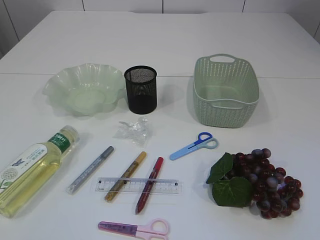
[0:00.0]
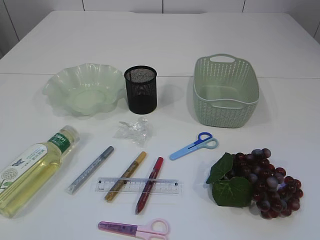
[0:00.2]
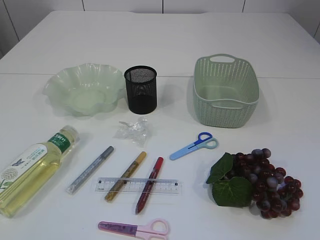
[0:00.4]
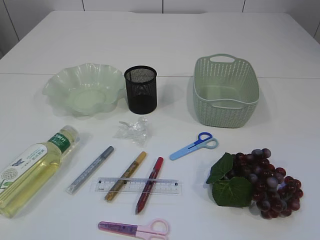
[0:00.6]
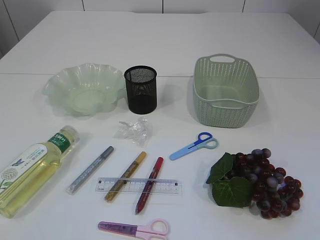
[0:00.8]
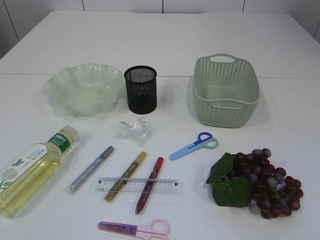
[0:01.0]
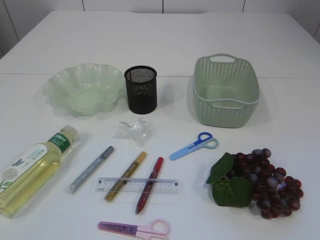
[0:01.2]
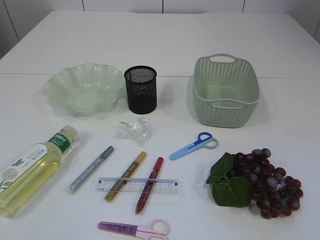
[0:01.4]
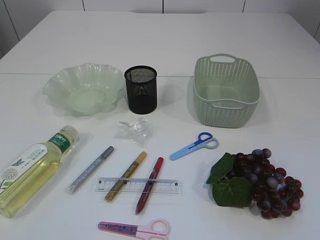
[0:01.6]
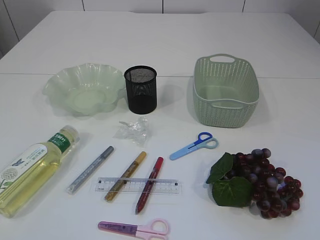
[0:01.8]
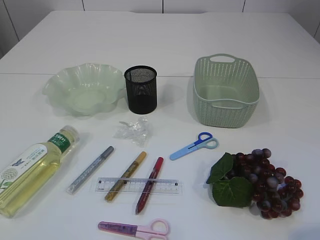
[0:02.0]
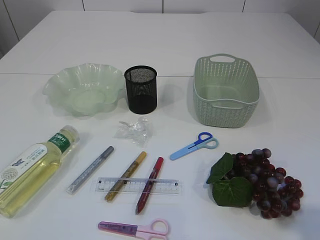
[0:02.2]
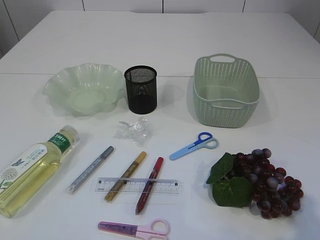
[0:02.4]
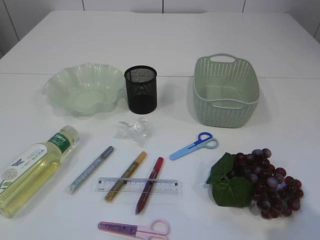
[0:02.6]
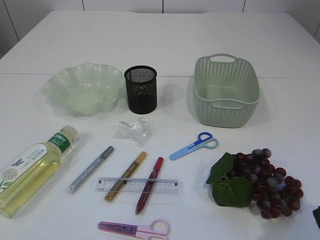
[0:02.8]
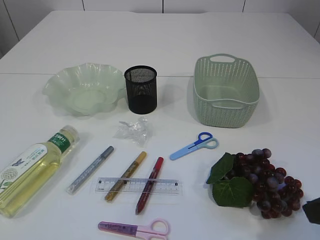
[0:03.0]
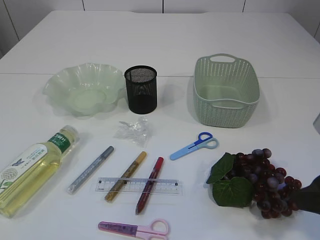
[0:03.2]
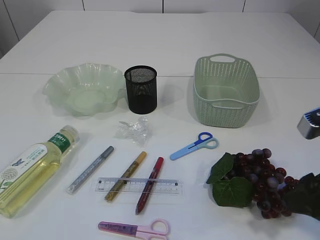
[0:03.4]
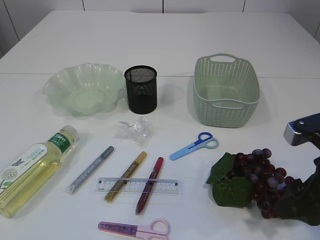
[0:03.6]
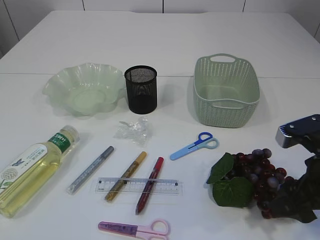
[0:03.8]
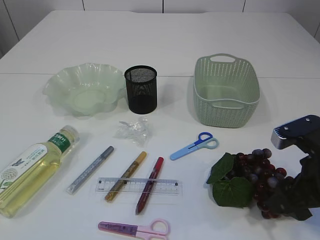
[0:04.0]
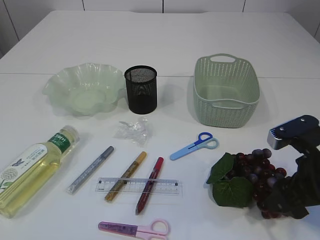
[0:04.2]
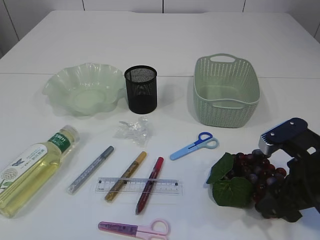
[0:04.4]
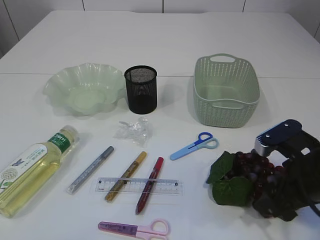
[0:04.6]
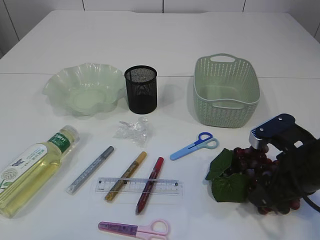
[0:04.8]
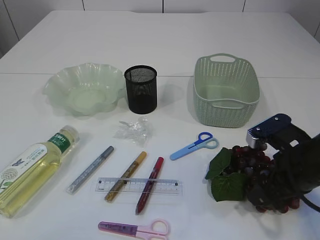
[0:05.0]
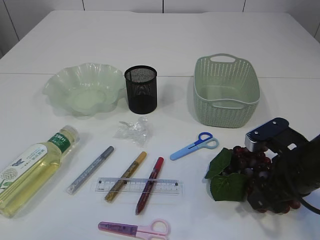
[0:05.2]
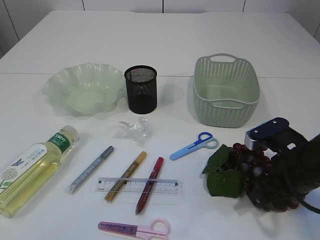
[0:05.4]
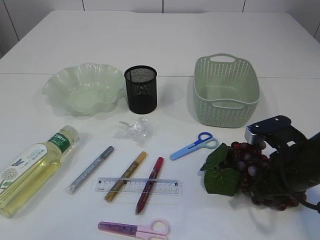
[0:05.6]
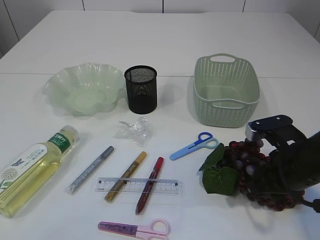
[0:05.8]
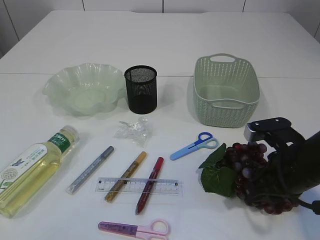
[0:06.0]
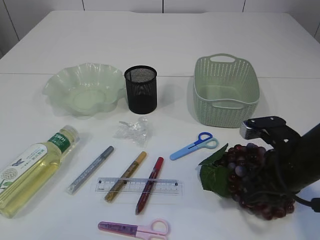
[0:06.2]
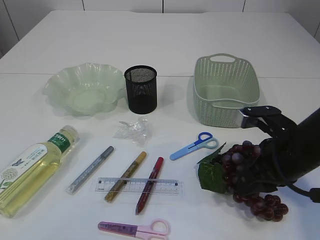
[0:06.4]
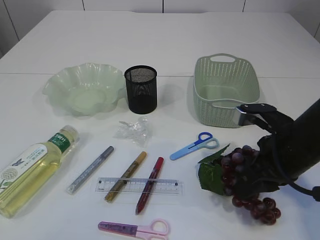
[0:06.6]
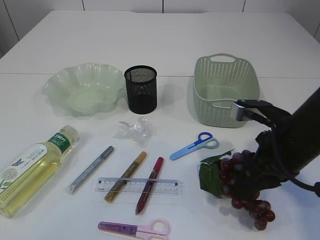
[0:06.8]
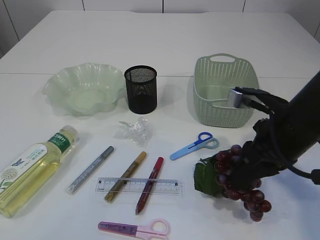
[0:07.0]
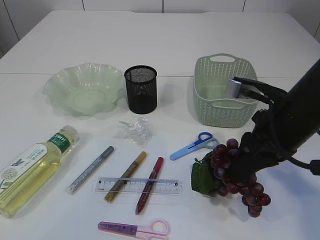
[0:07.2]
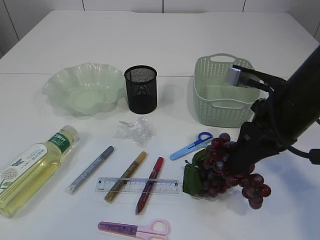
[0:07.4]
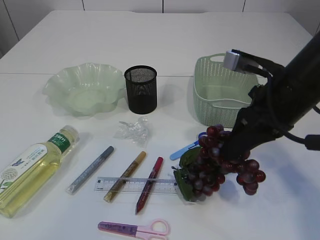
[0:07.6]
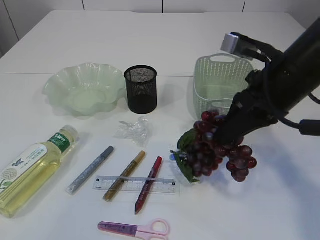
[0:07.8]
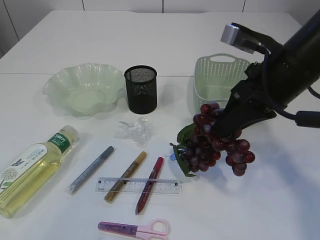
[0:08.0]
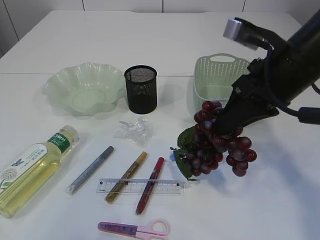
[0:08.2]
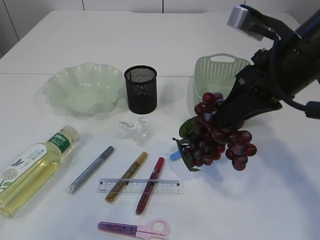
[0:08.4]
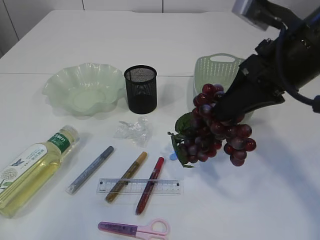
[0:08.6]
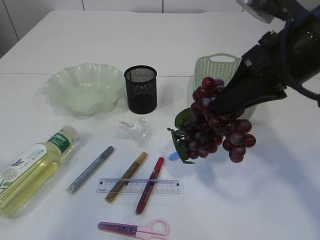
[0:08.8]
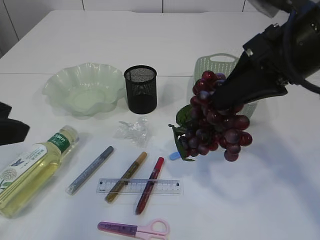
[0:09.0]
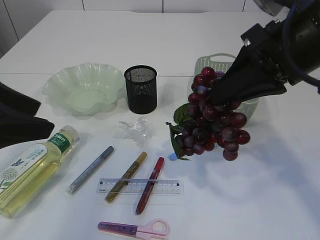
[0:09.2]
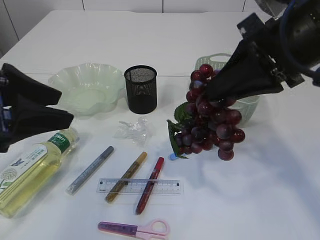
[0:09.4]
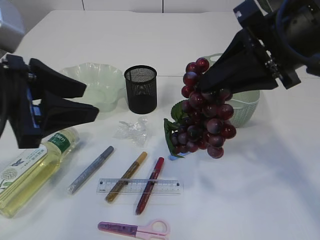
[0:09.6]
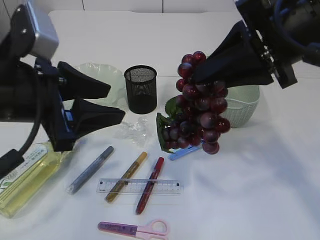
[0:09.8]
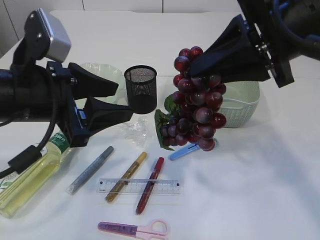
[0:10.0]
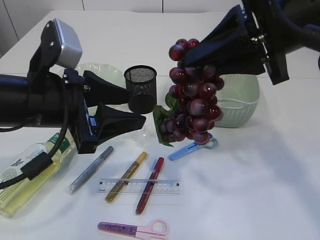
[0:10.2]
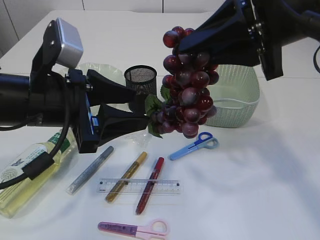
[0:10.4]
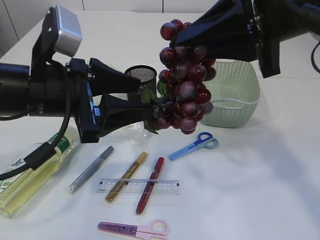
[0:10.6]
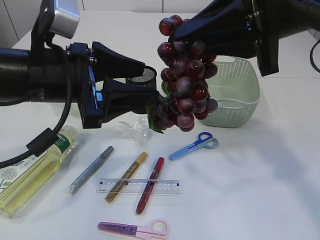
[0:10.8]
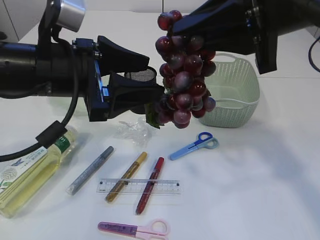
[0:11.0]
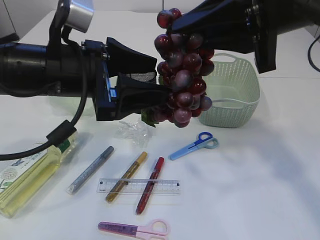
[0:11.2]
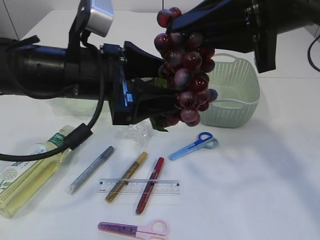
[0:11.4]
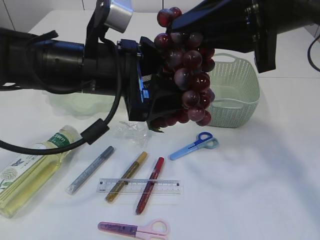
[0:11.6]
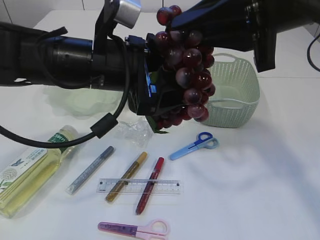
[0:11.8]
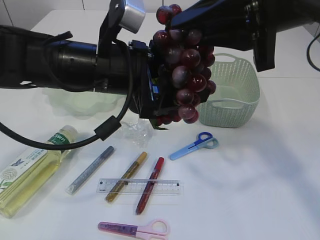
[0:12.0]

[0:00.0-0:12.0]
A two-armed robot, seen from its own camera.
Step, 0:00.0 to 0:09.0: Pick up the grapes.
0:01.6 to 0:03.0: The right gripper goes some 15 cm forward.
0:03.0 to 0:04.4: The right gripper is displaced downward and forward by some 10 cm.
0:04.4 to 0:06.0: The right gripper closes.
0:06.0 to 0:07.6: The right gripper shifts roughly 10 cm upward.
0:07.6 to 0:09.0: The left gripper heads forward, covering some 20 cm; the right gripper goes about 10 cm upward.
0:09.0 to 0:10.4: The left gripper travels to the right, forward and downward by some 15 cm.
0:10.4 to 0:12.0: The left gripper heads to the right, covering some 5 cm.

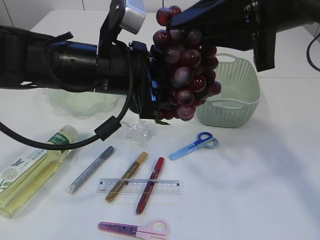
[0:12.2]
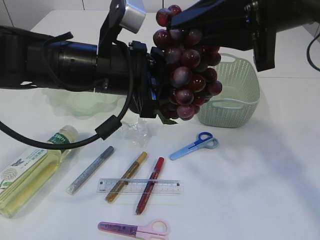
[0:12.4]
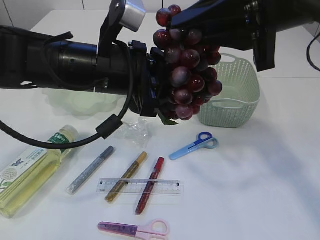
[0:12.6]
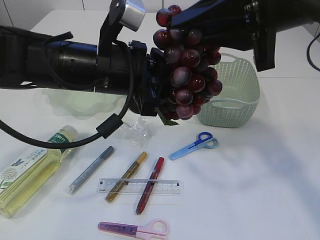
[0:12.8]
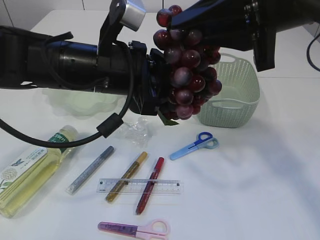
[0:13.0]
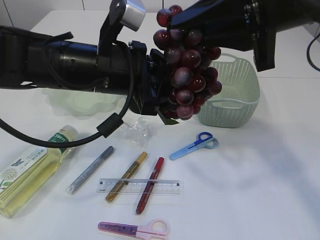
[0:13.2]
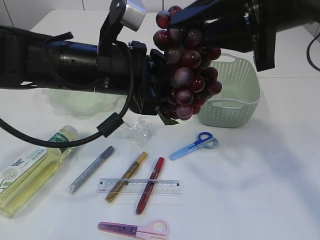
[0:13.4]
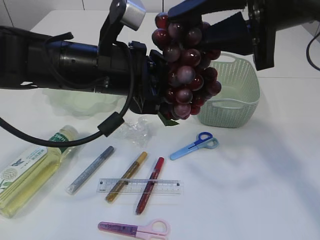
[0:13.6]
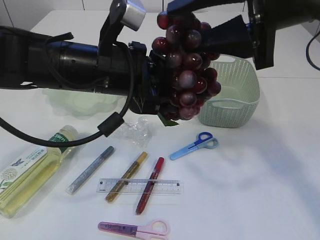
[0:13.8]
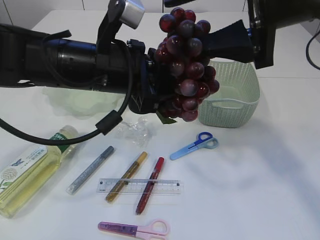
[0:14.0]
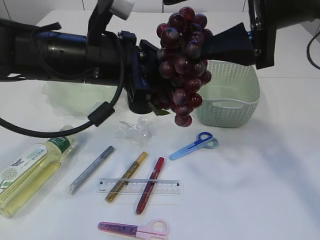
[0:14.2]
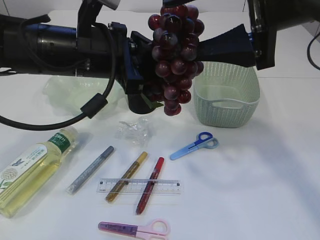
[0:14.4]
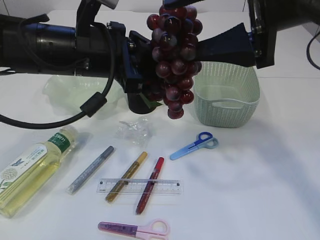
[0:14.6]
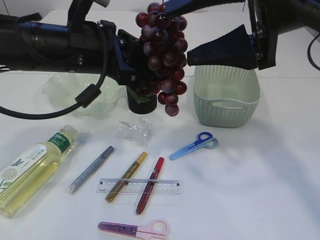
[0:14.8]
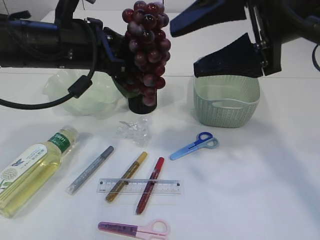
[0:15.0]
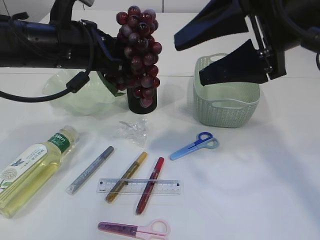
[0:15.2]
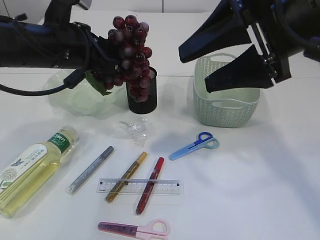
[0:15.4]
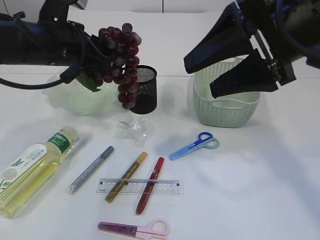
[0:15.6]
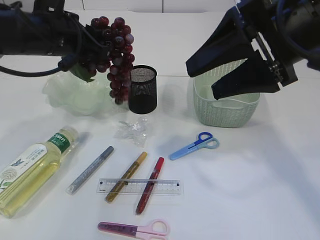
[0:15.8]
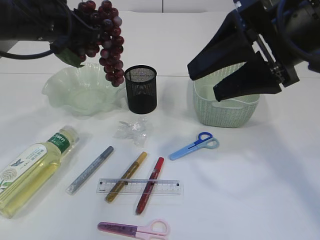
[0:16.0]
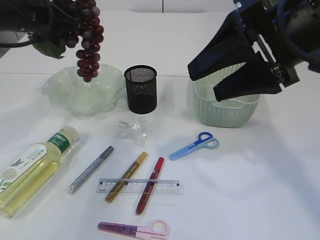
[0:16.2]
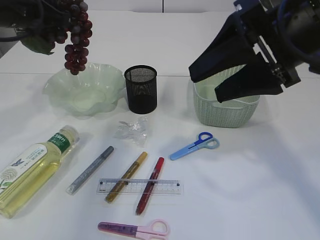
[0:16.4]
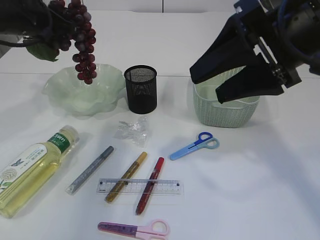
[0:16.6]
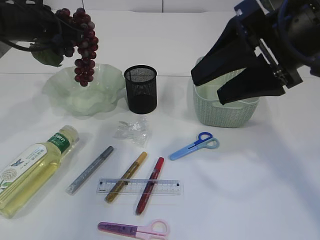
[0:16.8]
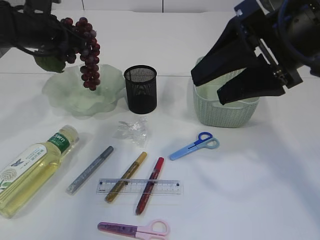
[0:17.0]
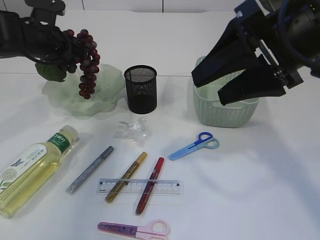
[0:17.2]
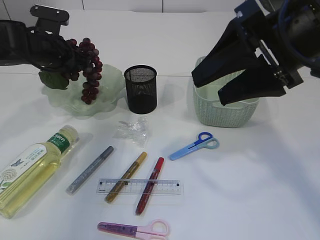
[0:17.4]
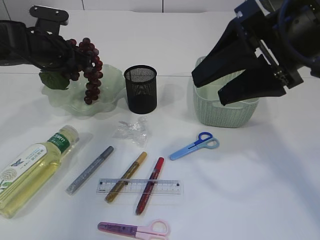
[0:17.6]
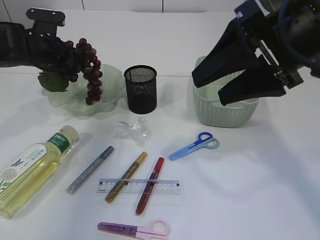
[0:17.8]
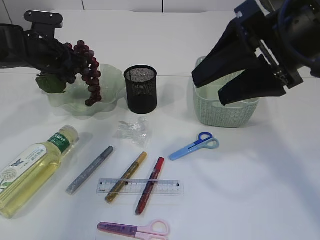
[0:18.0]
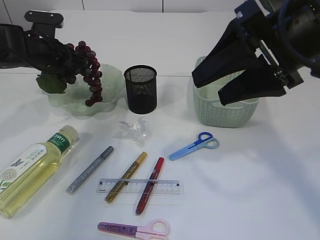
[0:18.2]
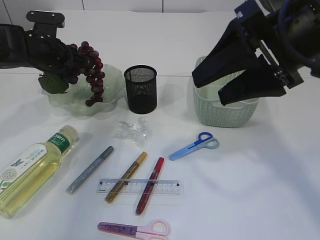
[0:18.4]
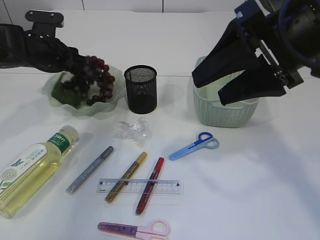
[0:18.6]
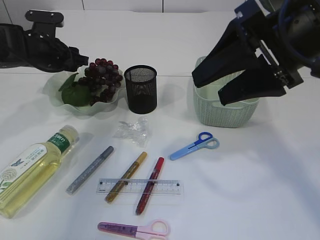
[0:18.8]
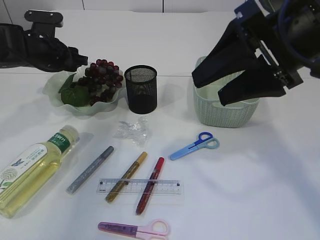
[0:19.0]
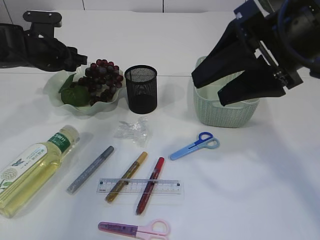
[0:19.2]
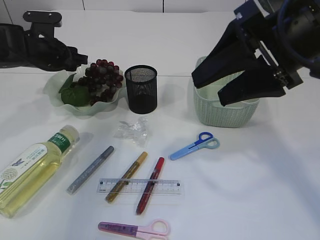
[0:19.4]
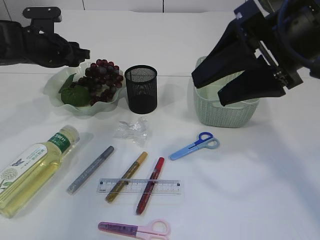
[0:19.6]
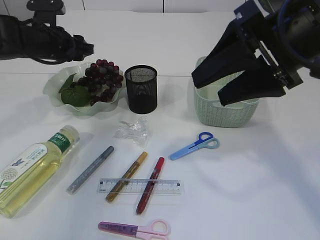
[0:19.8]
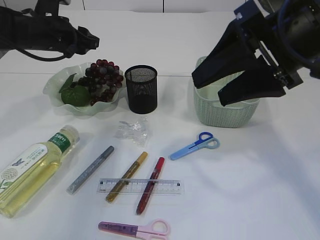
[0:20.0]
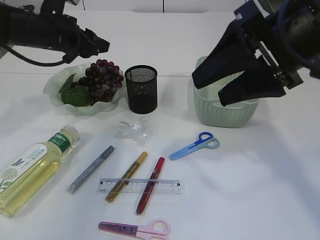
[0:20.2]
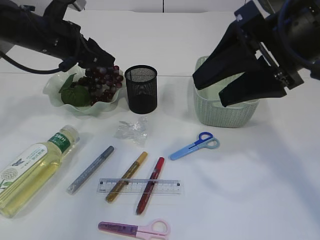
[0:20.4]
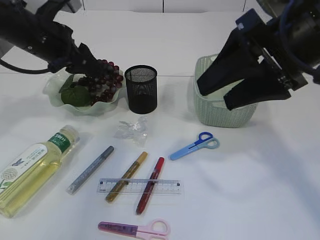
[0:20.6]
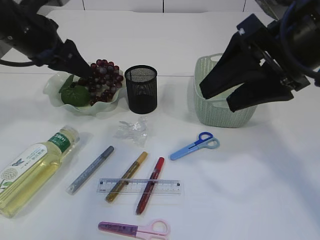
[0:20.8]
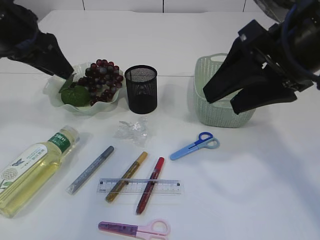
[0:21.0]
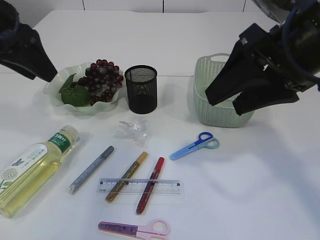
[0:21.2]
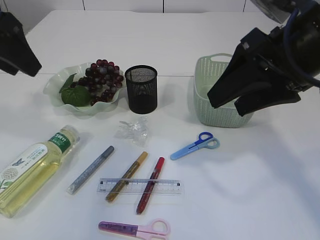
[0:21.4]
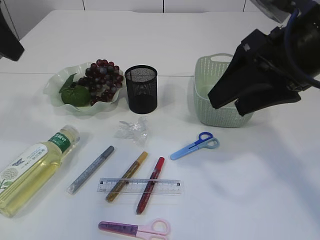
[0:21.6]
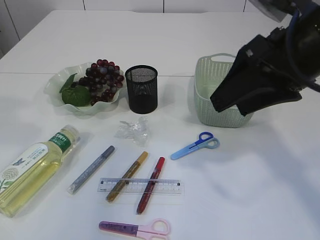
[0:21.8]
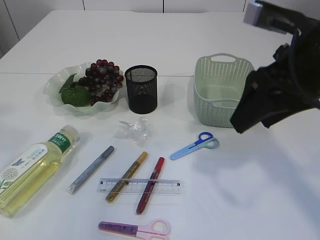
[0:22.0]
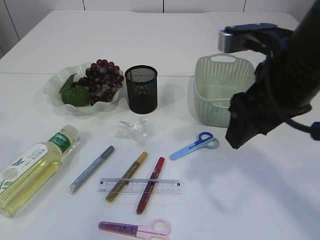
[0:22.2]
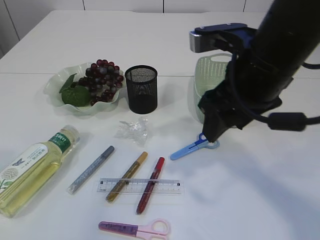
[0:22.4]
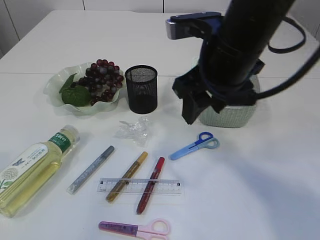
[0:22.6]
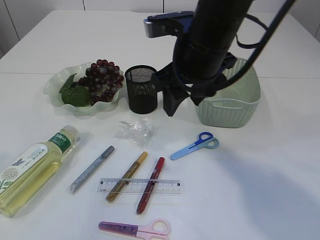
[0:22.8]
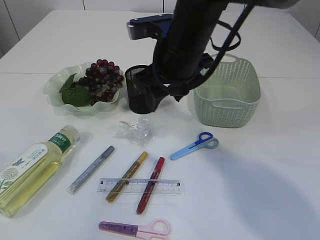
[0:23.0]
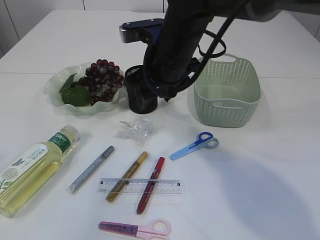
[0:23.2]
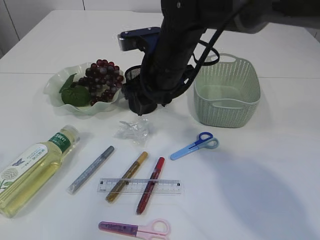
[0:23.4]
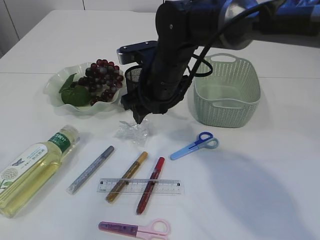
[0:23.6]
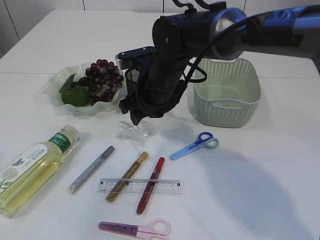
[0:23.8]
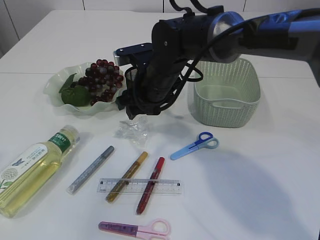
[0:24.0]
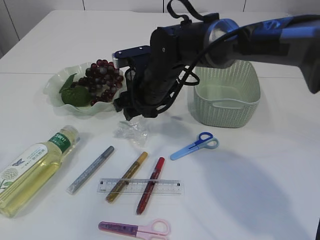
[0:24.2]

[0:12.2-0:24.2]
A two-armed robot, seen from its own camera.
Step, 0:12.2 to 0:15.2: Hand over the grapes.
Step, 0:15.4 to 0:19.8: Place the grapes in the plate.
0:12.2 to 0:13.8: The right gripper opens.
0:13.8 to 0:15.2: The right gripper opens up. The left gripper heads to the left, covering some 5 cm.
0:15.2 to 0:16.6: The left gripper moves to the left and forward, about 10 cm.
0:16.6 to 0:18.2: The left gripper shifts approximately 10 cm downward and forward.
0:18.2 to 0:19.8: The grippers move only a little.
0:19.8 to 0:21.2: The left gripper travels backward and upward by some 20 cm.
0:21.2 to 0:22.6: The right gripper shifts about 5 cm to the left. Meanwhile the left gripper is displaced backward and upward by some 20 cm.
0:22.6 to 0:24.2: The right gripper heads downward, forward and to the left, covering roughly 20 cm.
